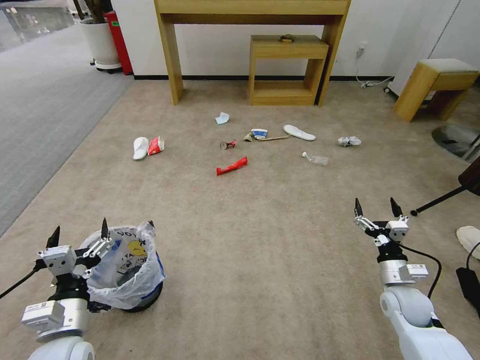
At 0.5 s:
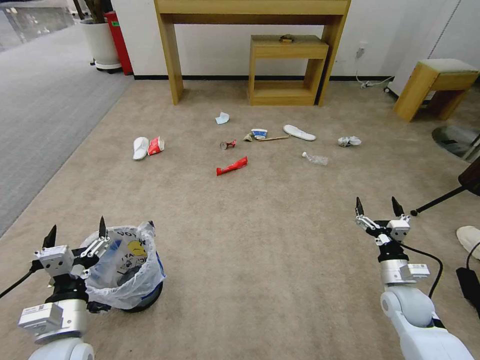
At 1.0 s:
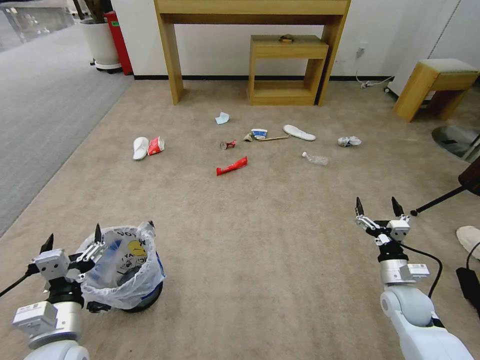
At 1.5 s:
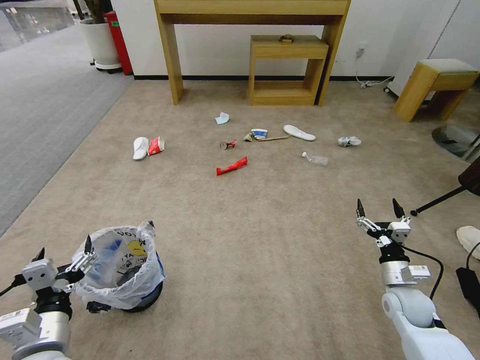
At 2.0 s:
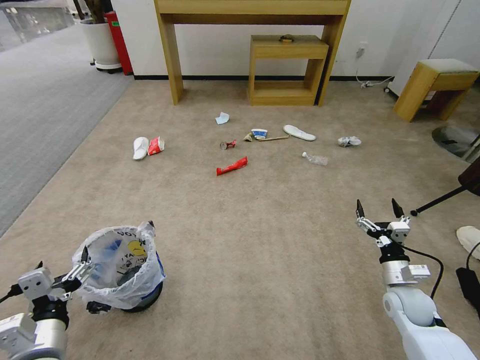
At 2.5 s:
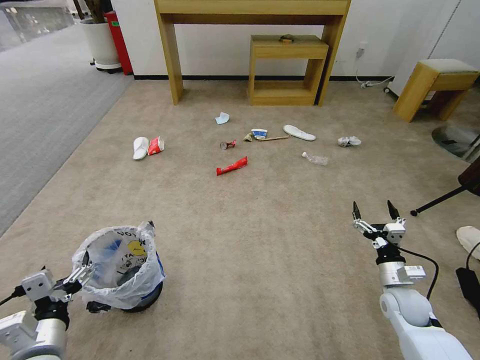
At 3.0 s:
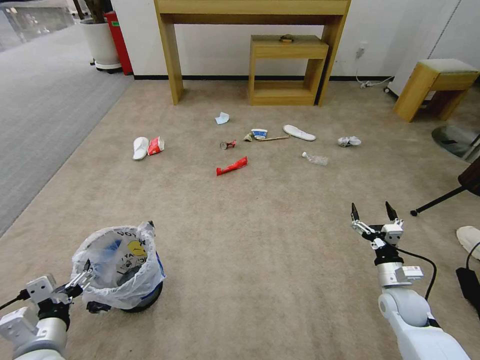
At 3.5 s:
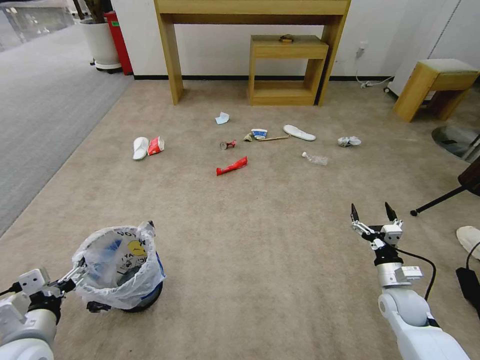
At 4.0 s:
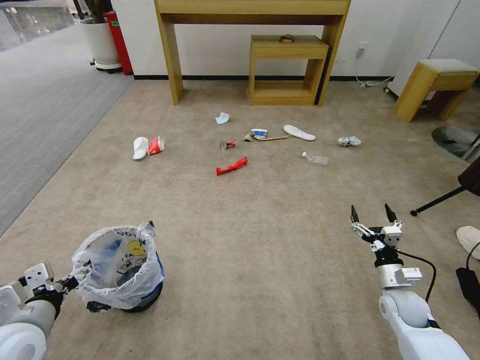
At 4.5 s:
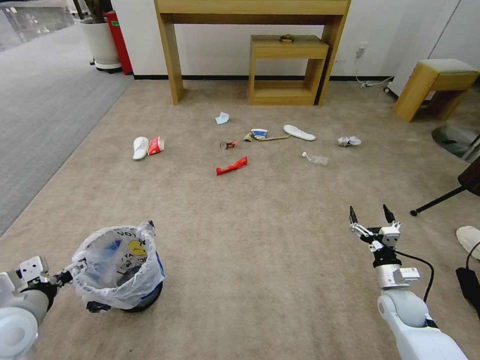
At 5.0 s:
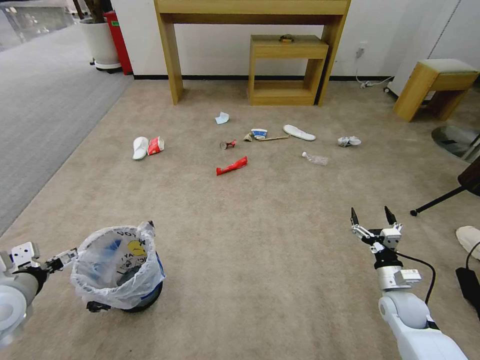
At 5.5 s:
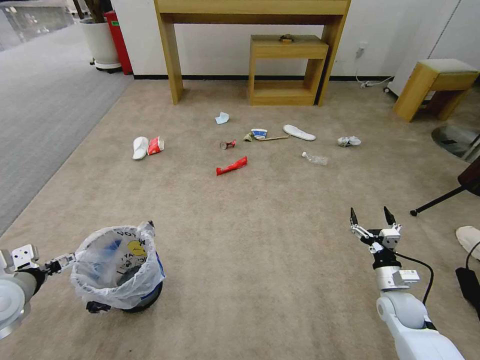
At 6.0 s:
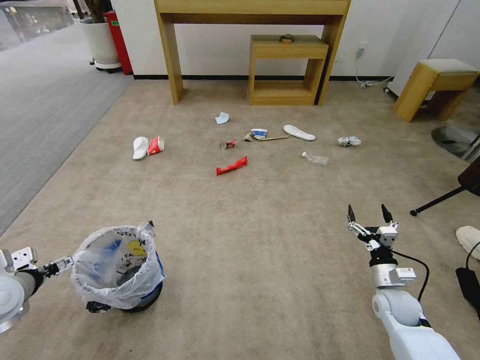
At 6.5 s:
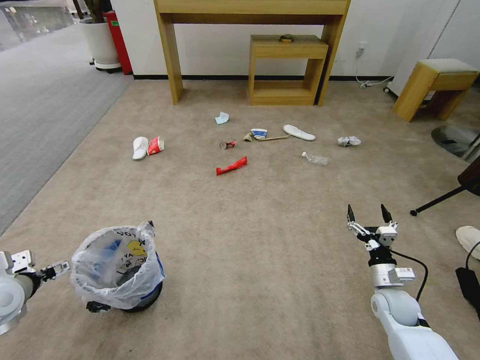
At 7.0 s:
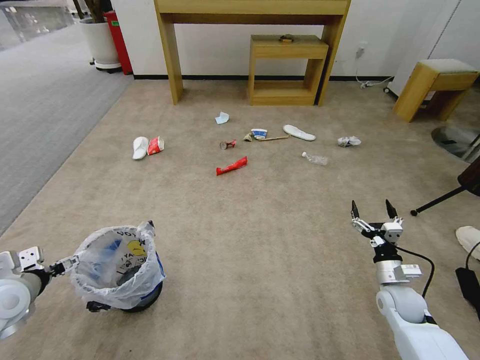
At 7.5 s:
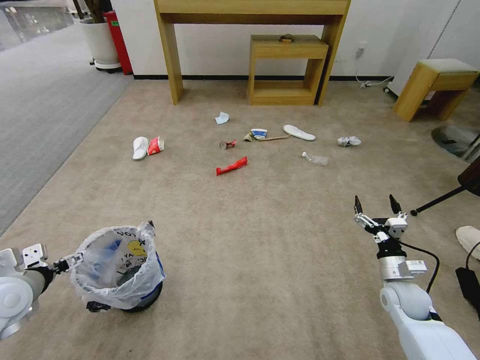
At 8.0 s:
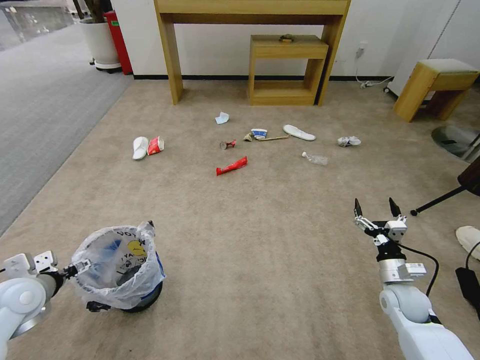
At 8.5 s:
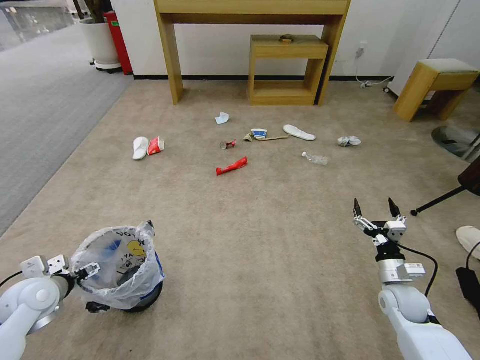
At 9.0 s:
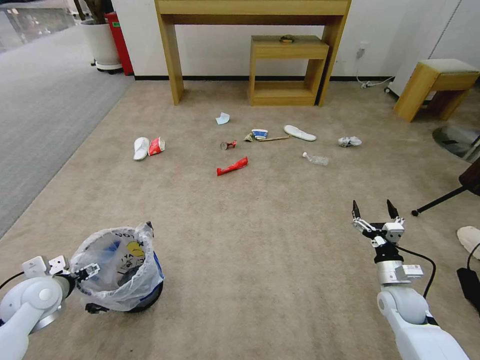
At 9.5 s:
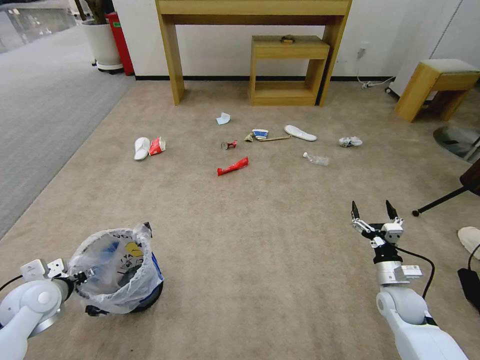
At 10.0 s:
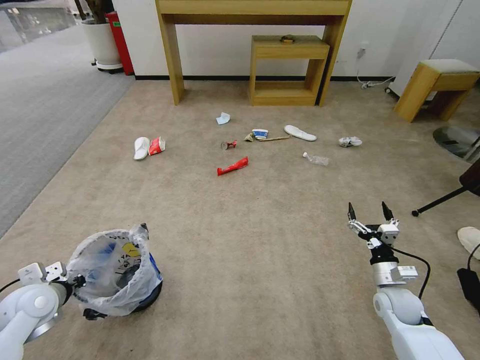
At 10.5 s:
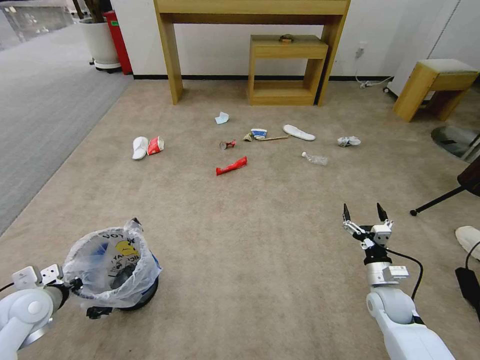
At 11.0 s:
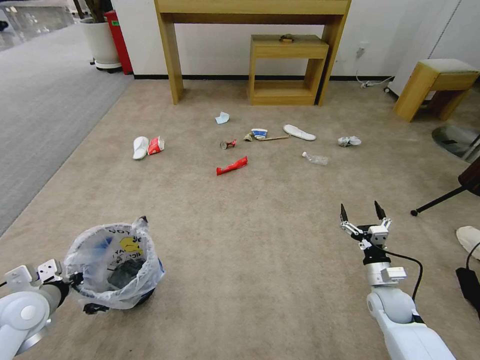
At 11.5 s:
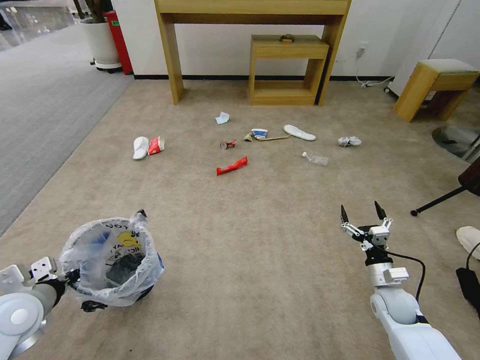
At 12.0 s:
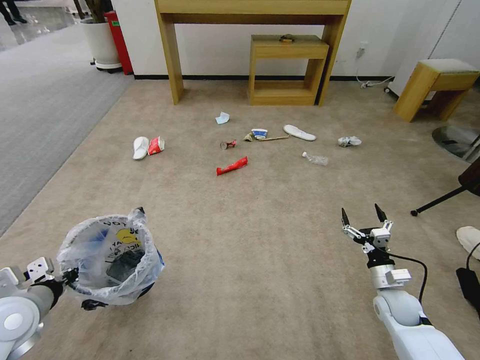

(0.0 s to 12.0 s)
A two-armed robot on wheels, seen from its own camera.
Task of the whole recording: Pick up the trash bin and place the garbage on the floor into it.
2.0 s - 4.0 s: The left gripper is displaced to the left by about 5 cm.
4.0 s - 6.0 s: The left gripper shifts approximately 10 cm to the left and forward.
6.0 s - 8.0 s: The grippers make only small movements.
8.0 s - 10.0 s: The left gripper closes.
10.0 s - 12.0 s: The left gripper heads upward, covering approximately 5 cm.

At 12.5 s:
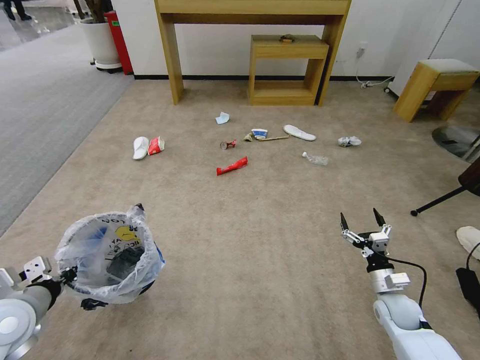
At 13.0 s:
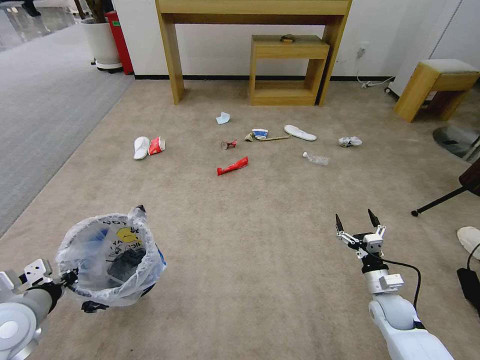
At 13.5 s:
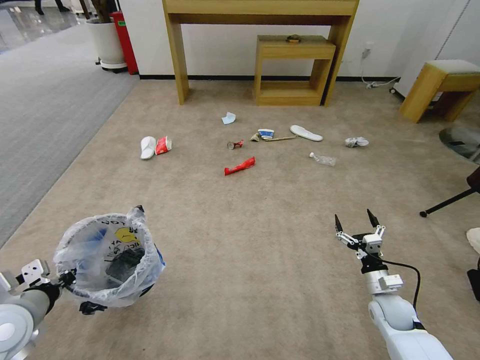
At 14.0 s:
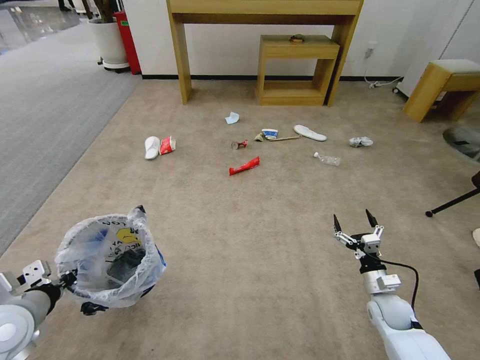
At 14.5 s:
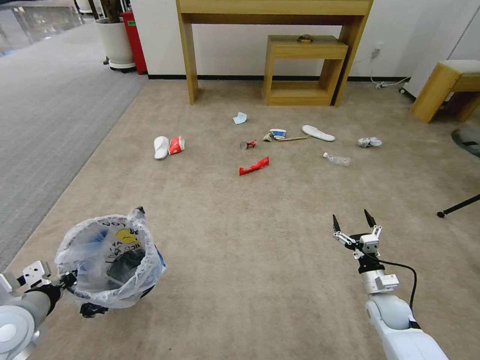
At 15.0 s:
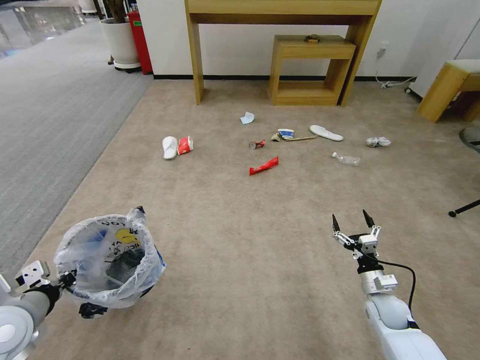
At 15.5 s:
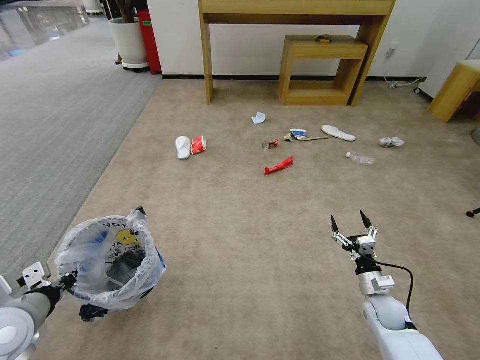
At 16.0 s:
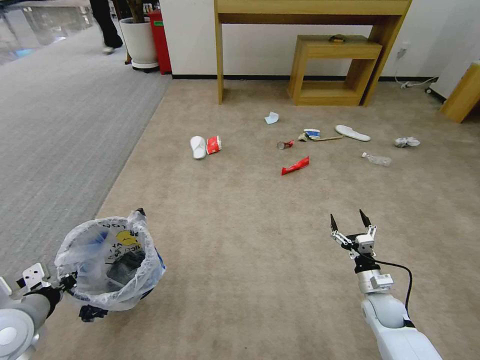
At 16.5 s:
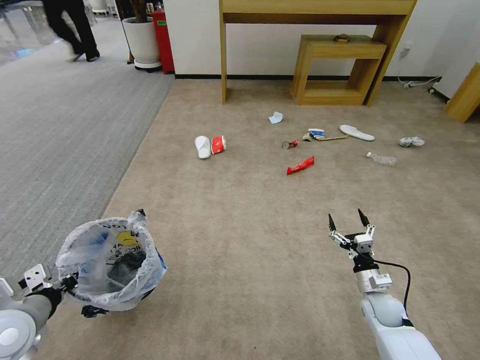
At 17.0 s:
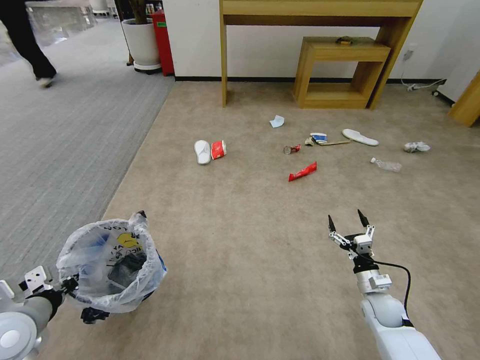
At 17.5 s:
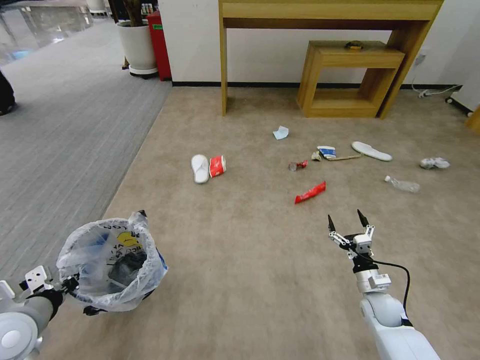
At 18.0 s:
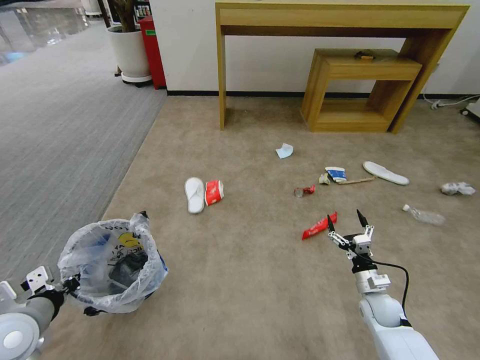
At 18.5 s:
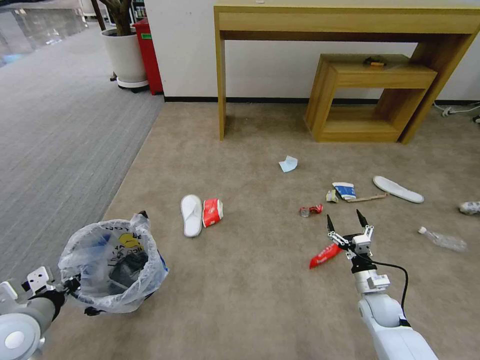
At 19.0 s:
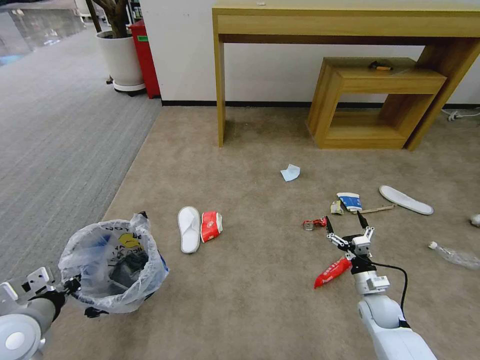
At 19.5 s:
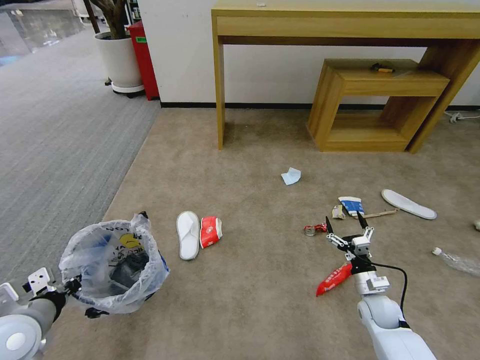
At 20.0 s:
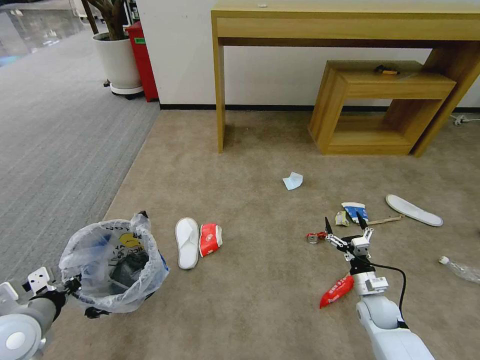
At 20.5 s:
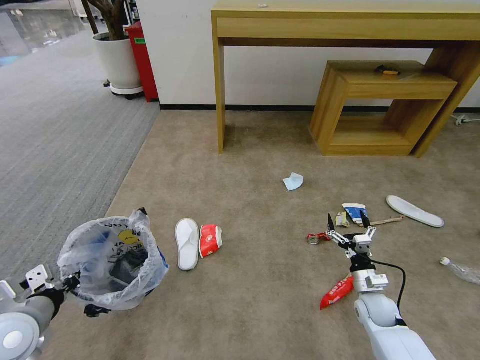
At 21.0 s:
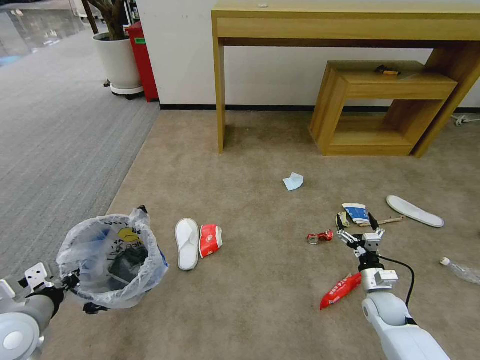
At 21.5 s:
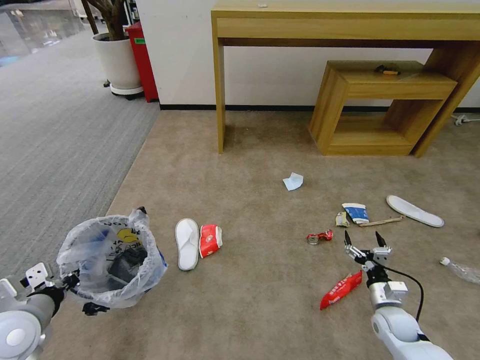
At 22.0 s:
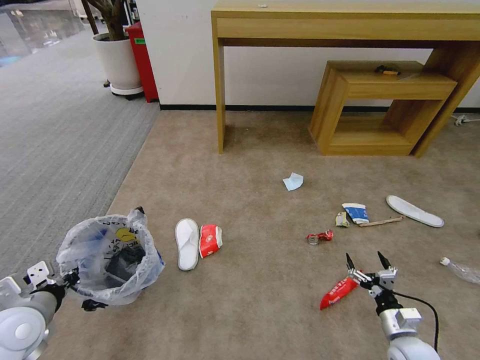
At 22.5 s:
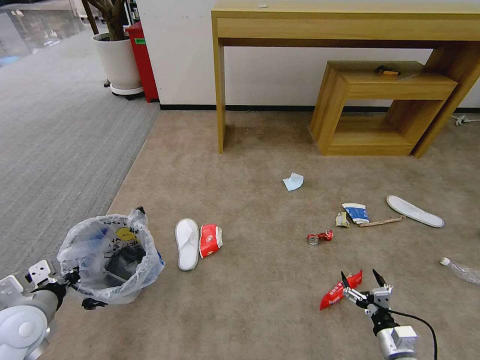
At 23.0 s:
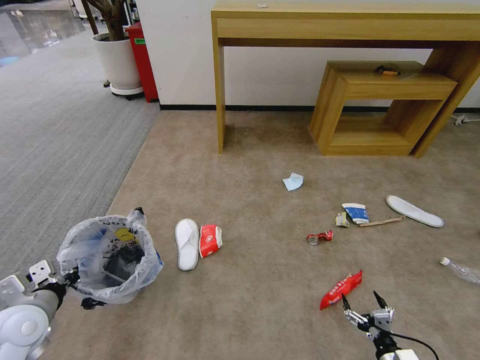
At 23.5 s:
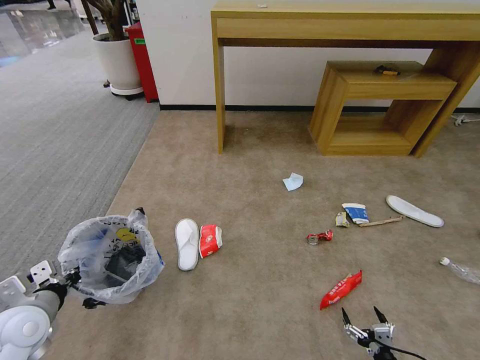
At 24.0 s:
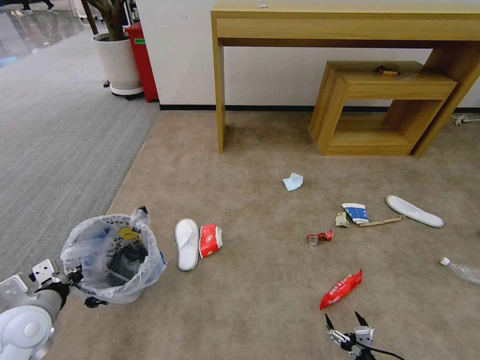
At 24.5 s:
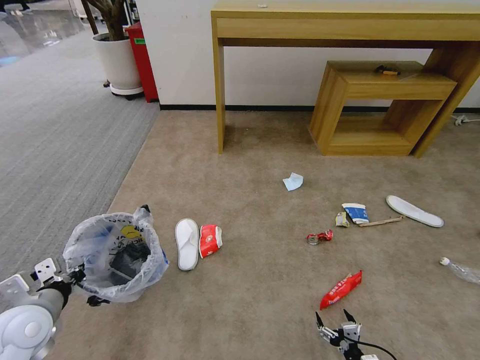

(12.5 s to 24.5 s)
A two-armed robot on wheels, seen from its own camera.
Task of the whole recording: Pick up the trash bin and place the garbage on the floor into it.
12.5 s - 14.5 s: The grippers make only small movements.
20.5 s - 22.5 s: The right gripper shifts some 15 cm backward.
22.5 s - 24.5 s: The right gripper heads downward, backward and to the left, covering about 10 cm.

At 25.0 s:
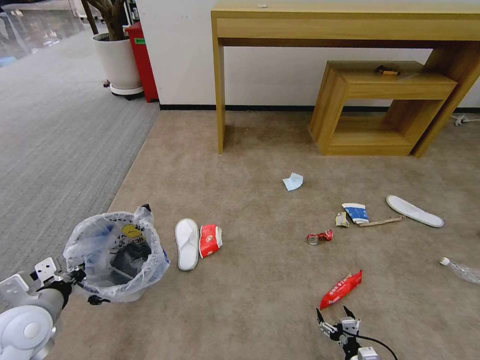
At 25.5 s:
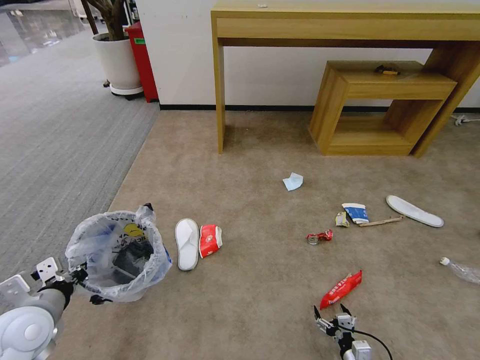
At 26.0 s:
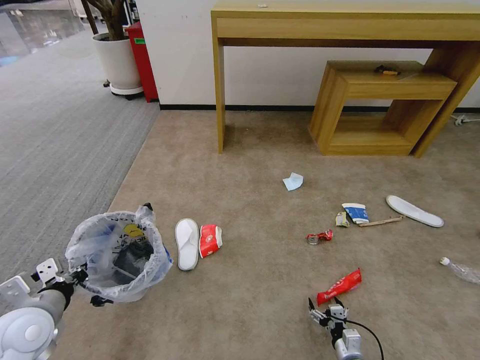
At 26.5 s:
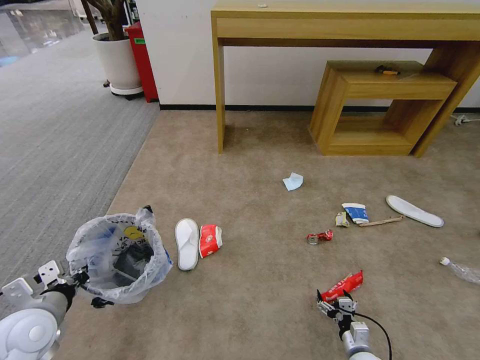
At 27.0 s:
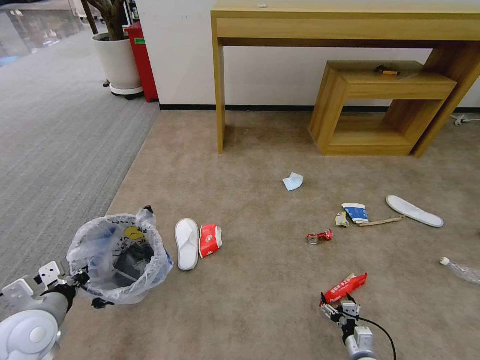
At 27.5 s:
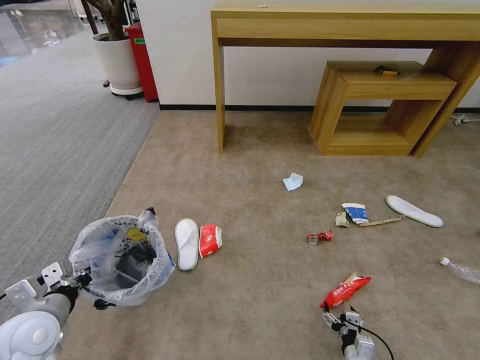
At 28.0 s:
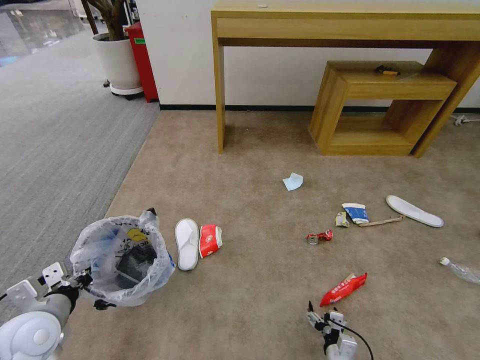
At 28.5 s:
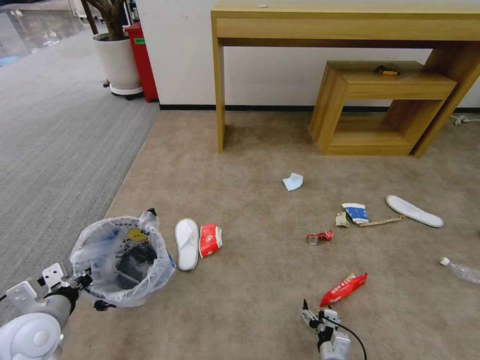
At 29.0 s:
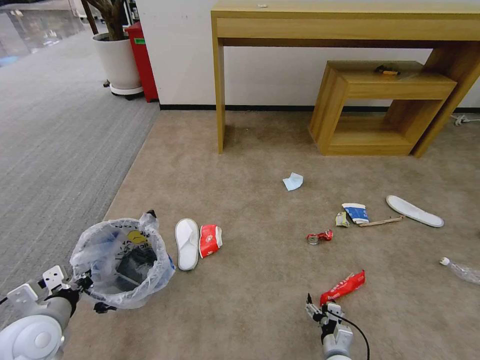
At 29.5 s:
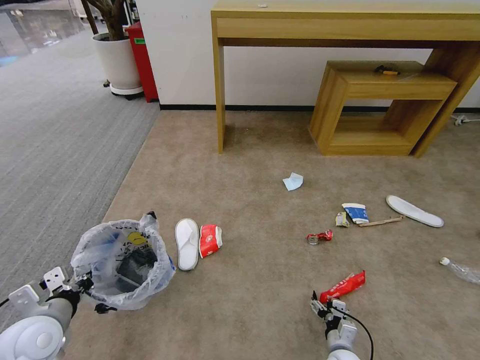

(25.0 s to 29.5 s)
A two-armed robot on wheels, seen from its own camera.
Task of the whole recording: Pick up the trash bin and place the garbage on the floor into it.
25.0 s - 27.0 s: The right gripper moves forward, about 5 cm.
27.0 s - 29.5 s: The right gripper goes approximately 5 cm to the left.
